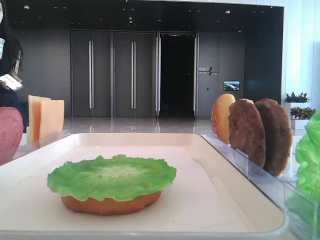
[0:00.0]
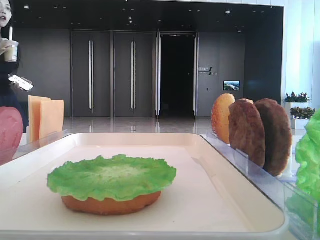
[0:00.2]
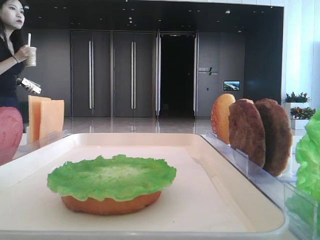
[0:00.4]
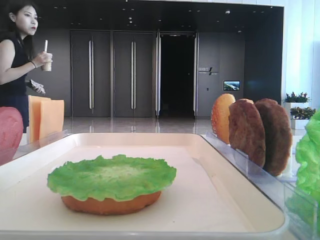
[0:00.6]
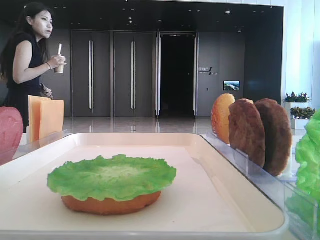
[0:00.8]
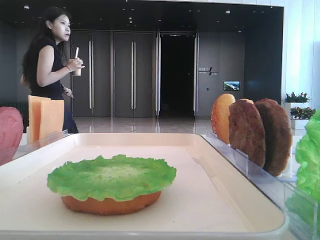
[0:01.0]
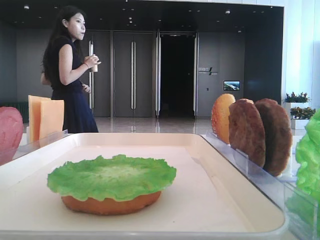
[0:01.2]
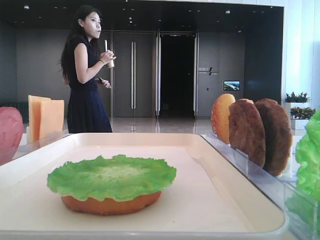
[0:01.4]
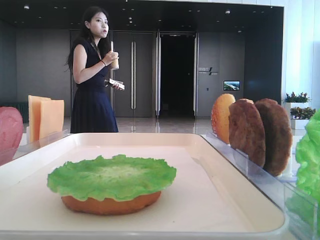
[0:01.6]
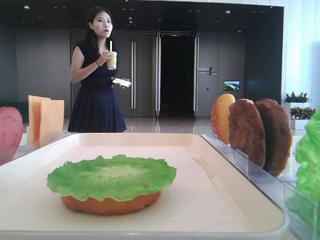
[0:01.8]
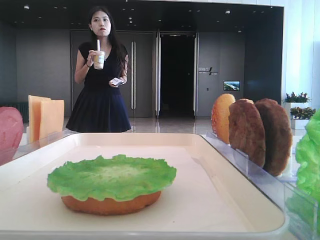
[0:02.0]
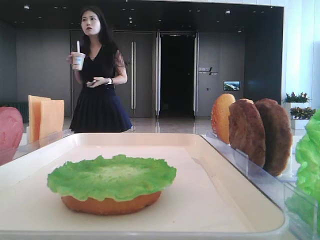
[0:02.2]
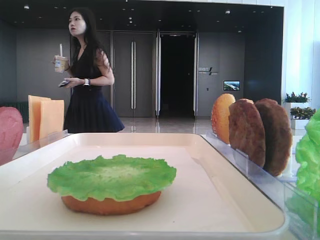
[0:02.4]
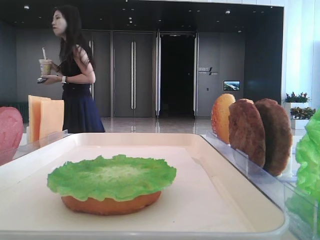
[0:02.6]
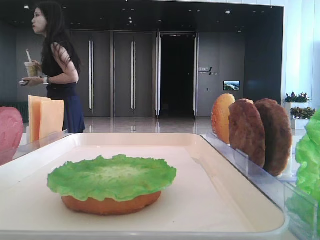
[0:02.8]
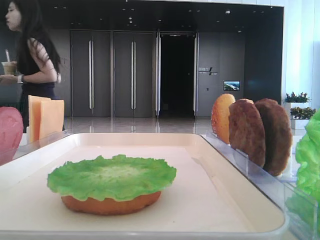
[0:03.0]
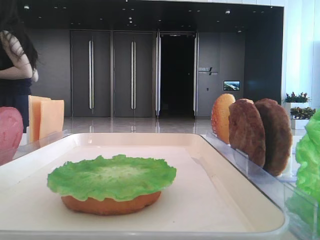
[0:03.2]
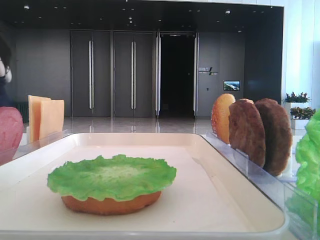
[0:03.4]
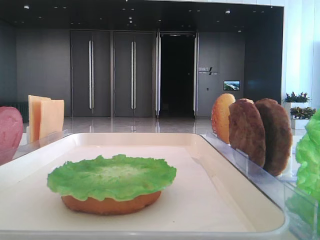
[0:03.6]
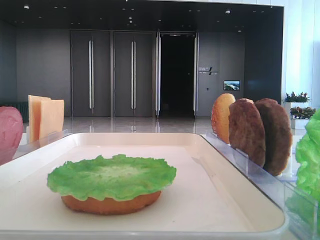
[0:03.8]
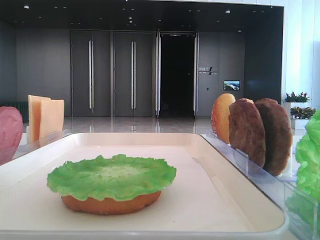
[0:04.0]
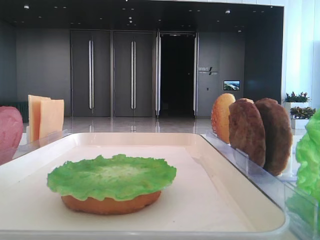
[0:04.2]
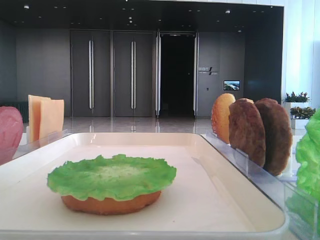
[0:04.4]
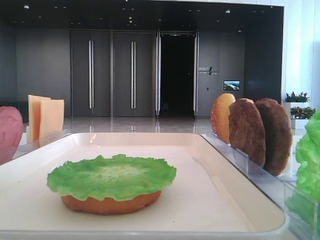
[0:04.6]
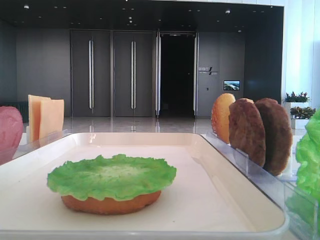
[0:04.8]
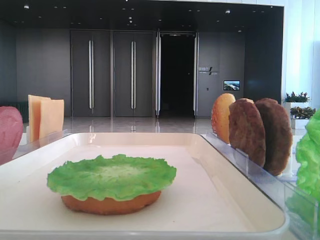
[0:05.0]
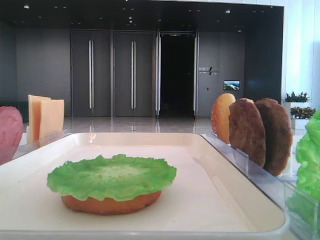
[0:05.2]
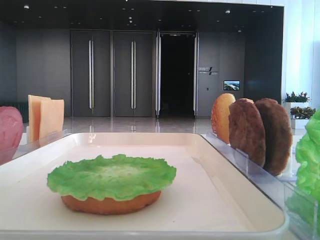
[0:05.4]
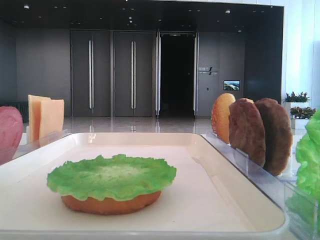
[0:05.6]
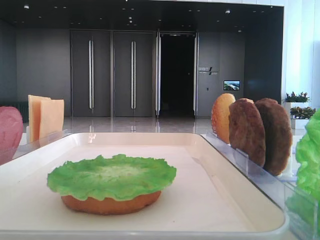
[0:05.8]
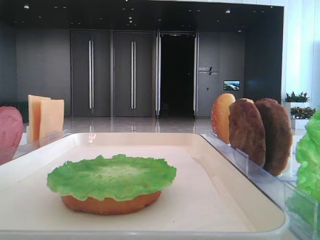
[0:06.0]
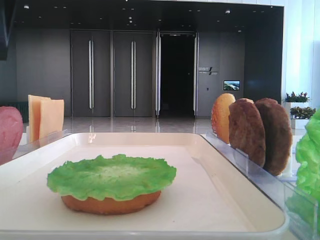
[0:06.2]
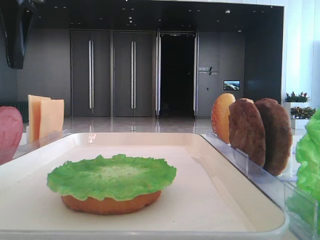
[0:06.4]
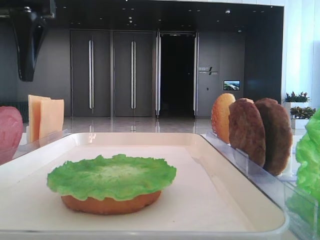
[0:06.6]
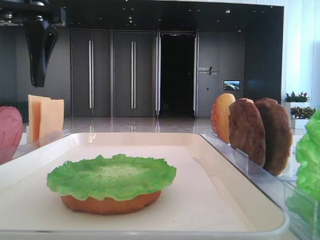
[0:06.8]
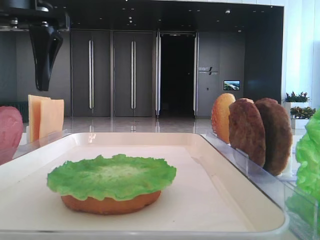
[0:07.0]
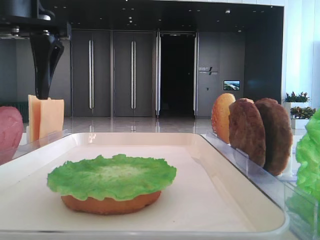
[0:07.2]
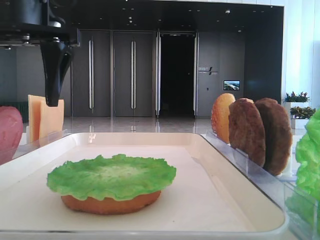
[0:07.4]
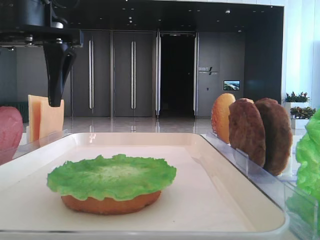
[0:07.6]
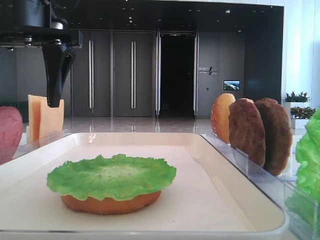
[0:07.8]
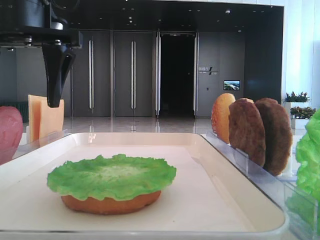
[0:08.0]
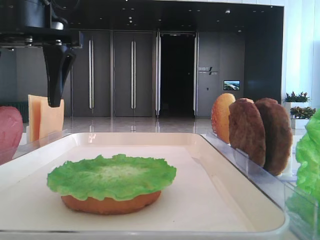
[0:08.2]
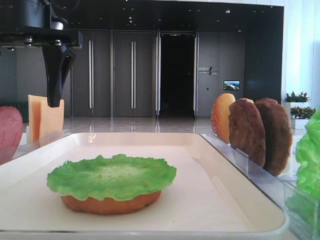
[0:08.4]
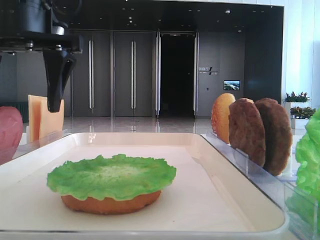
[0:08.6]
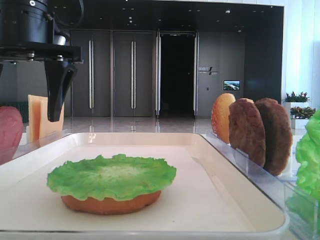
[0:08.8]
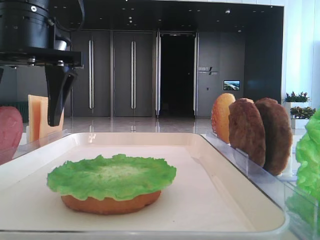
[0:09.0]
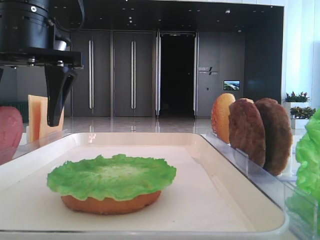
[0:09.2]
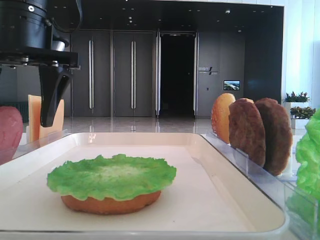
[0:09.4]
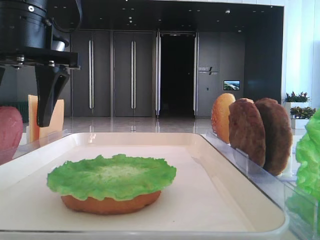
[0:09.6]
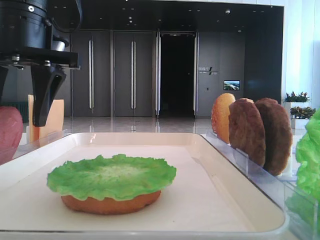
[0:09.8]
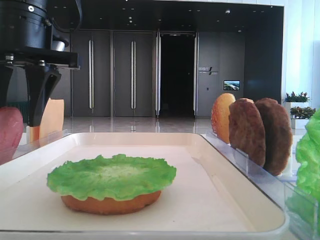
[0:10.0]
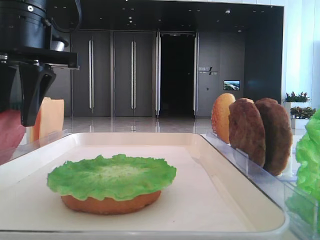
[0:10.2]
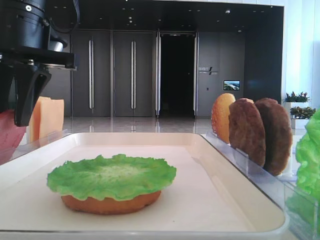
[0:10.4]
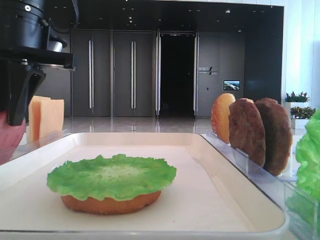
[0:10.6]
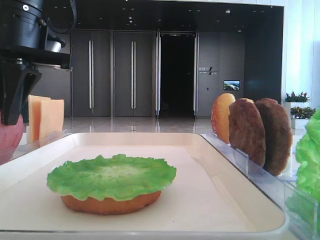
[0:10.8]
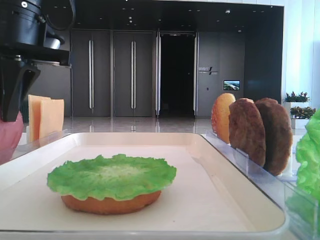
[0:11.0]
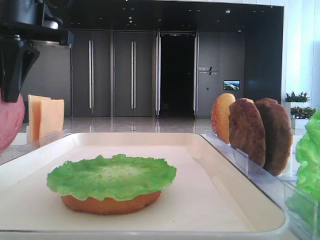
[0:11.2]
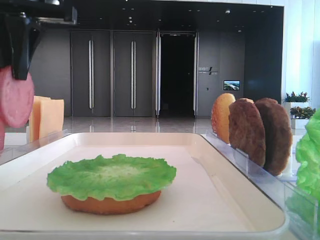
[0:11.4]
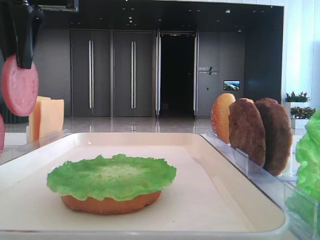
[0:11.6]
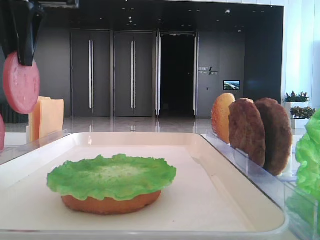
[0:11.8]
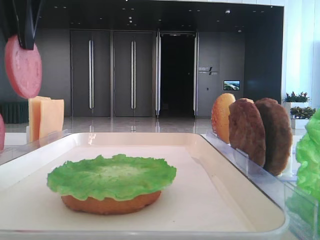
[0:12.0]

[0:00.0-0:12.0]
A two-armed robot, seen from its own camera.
Step, 0:00.0 to 0:10.8: Pick up the tomato slice with the left hand.
0:01.6 to 0:03.0: The left gripper opens.
0:03.0 to 0:04.4: The left gripper heads forward, covering some 25 cm.
0:06.0 to 0:07.6: The left gripper heads to the right, forward and downward, covering roughly 10 cm.
0:07.6 to 0:09.0: The grippers make only small movements.
0:09.0 to 0:10.4: The left gripper closes up.
0:10.4 to 0:12.0: The left gripper heads upward, covering about 10 cm.

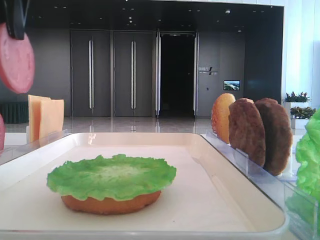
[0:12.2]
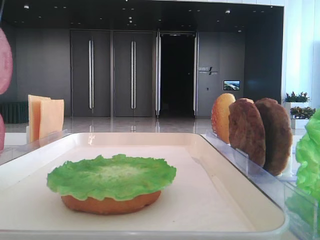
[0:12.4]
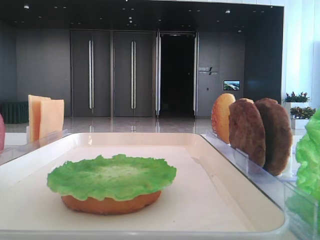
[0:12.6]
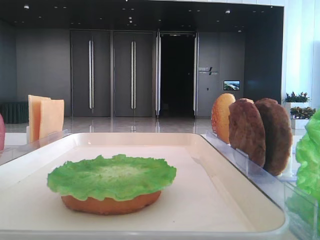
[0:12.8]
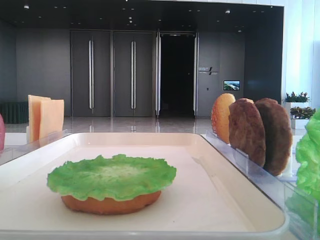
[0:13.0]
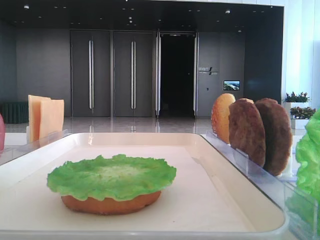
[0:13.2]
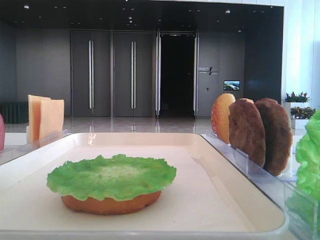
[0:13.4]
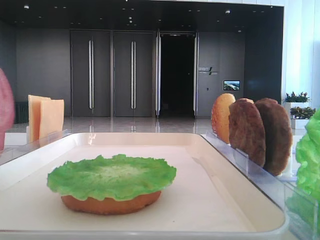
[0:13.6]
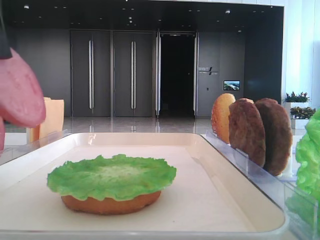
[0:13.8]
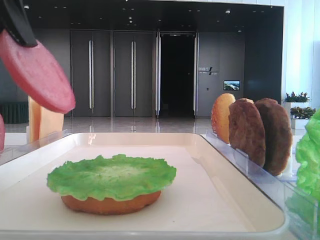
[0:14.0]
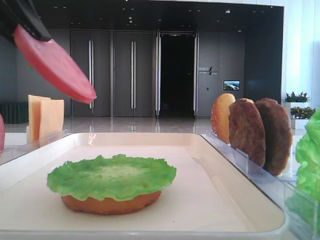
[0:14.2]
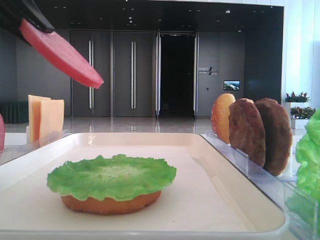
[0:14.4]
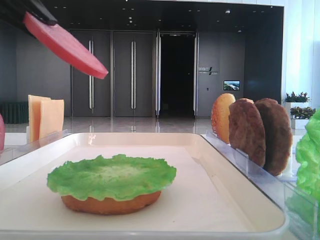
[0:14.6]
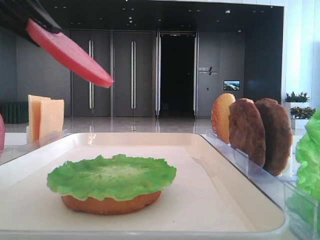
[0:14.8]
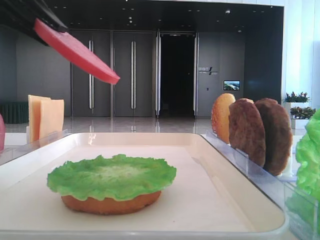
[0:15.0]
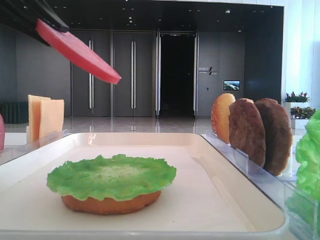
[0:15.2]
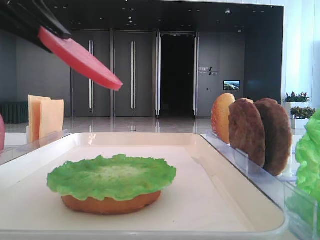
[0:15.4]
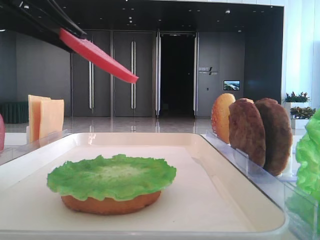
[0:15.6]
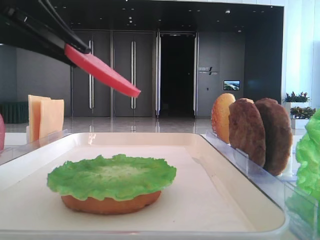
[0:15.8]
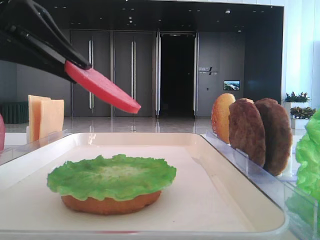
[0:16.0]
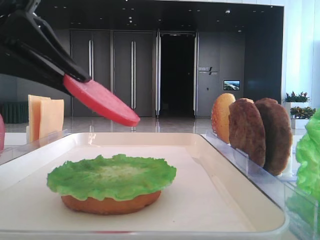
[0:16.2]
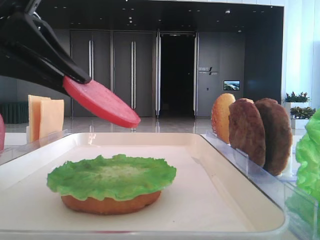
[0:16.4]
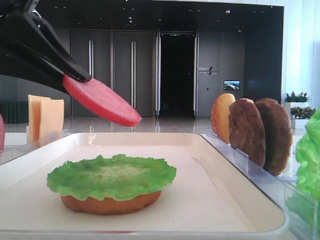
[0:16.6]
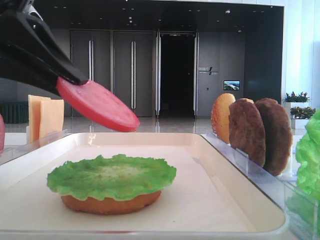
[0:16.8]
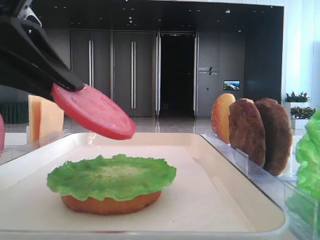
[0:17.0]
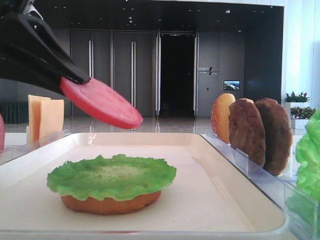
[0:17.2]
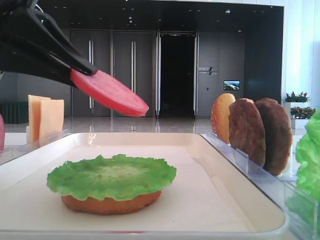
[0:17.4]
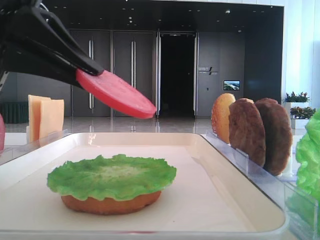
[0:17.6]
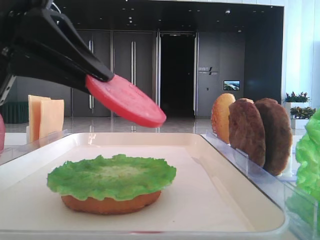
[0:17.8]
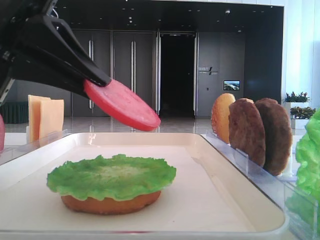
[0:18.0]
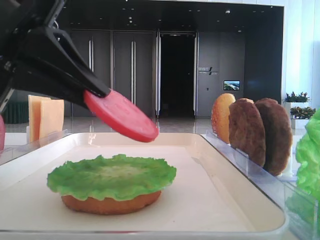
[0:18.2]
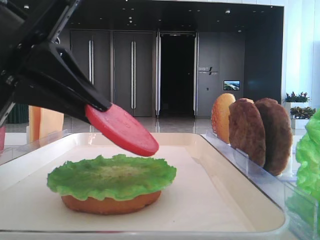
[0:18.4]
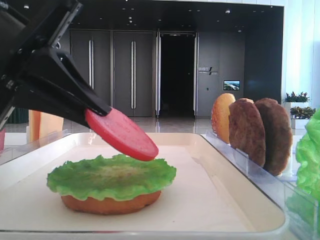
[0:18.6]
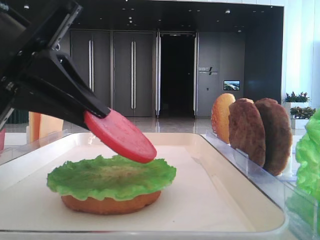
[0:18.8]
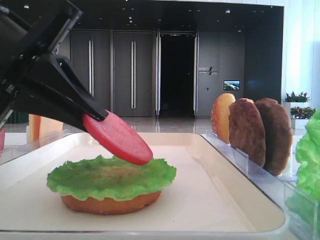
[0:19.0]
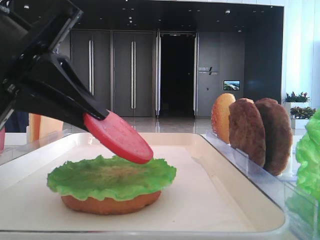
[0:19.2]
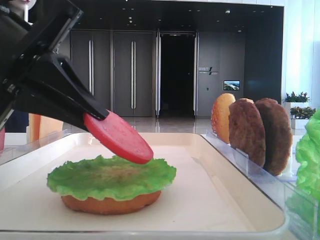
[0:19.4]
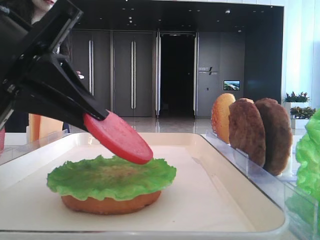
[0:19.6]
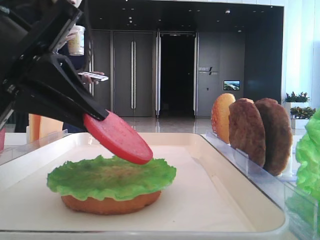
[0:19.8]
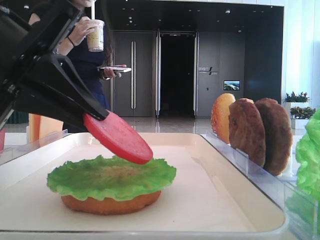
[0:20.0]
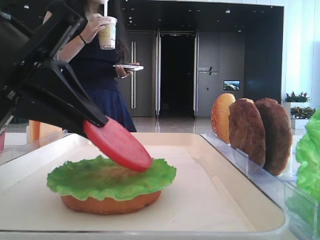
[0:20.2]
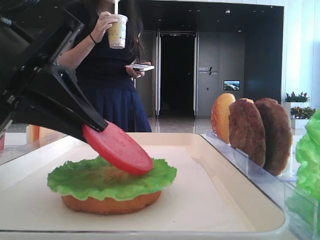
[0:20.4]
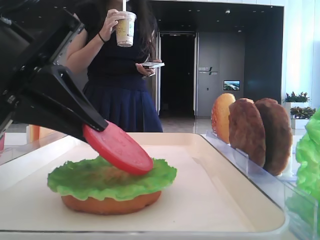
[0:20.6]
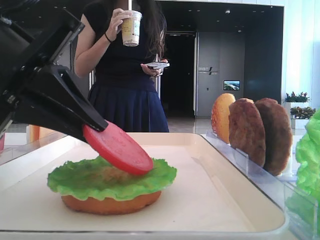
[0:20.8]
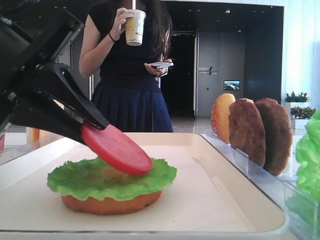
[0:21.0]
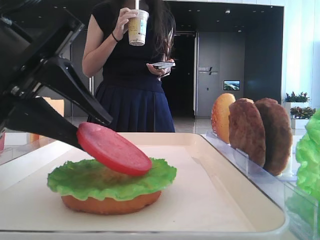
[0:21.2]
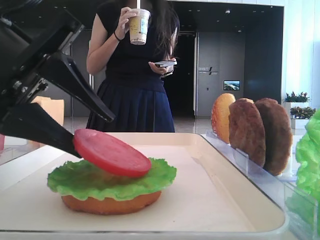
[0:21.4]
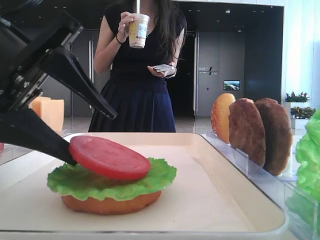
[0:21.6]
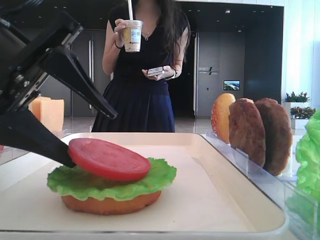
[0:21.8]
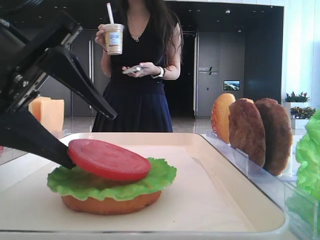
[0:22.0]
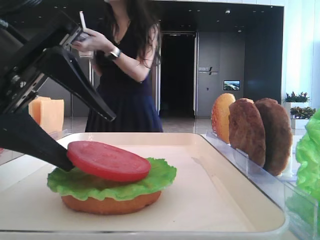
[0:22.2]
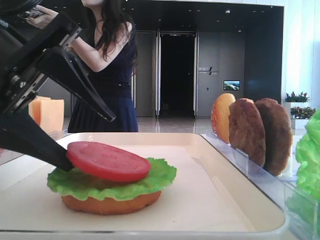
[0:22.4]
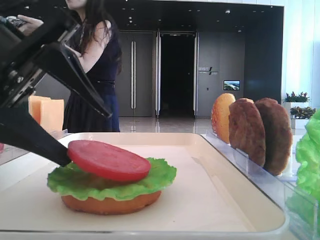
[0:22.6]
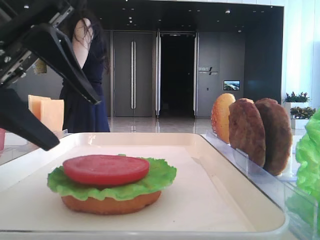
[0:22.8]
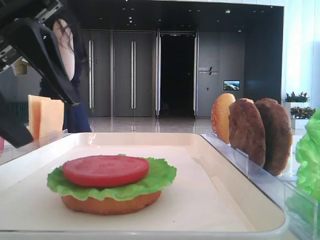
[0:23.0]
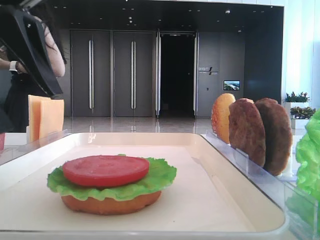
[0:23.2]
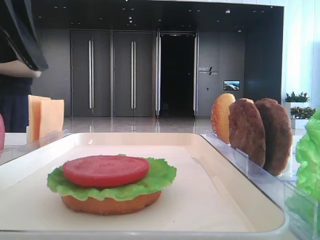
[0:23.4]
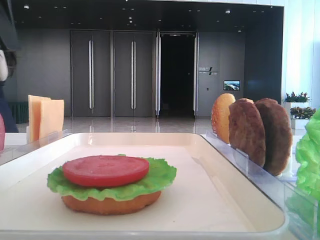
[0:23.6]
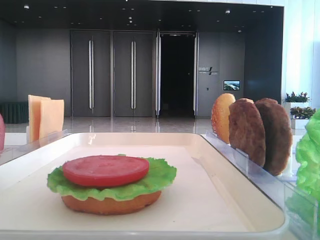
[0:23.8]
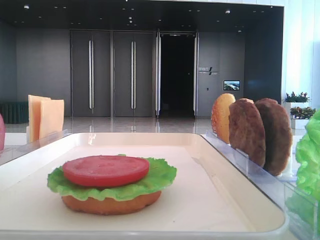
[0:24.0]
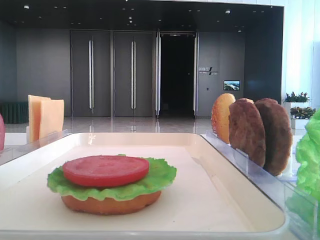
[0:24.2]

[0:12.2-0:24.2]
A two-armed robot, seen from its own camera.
Step, 0:12.2 to 0:22.6: Place the tomato slice on the lettuce leaf with the left hand.
0:12.2 to 0:13.8: The left gripper is displaced backward and downward by roughly 10 cm.
0:15.2 to 0:16.6: The left gripper ends up about 5 cm from where it was.
0:16.6 to 0:19.8: The grippers stay close to where they were, moving slightly.
0:22.6 to 0:24.2: The left gripper heads upward and to the left, covering about 15 cm.
